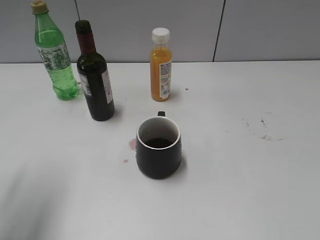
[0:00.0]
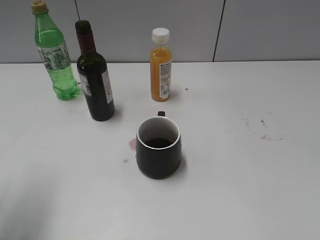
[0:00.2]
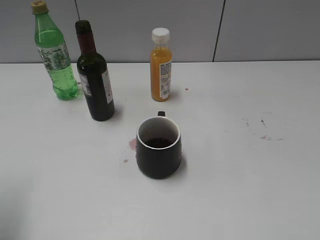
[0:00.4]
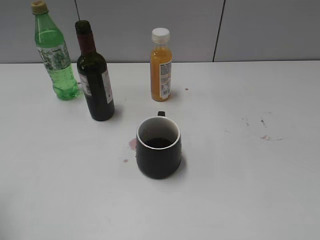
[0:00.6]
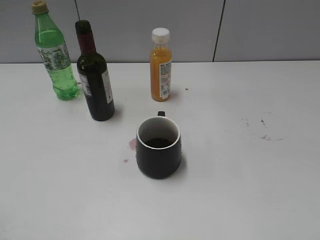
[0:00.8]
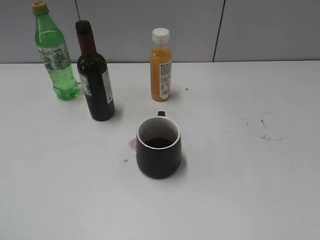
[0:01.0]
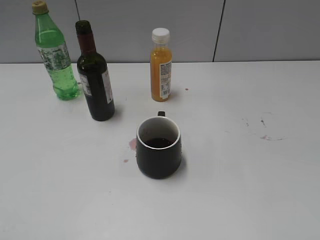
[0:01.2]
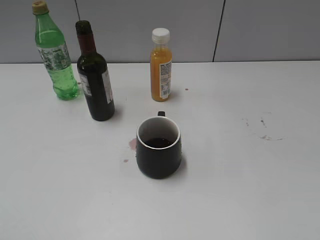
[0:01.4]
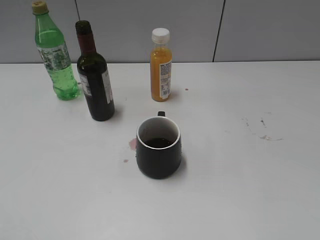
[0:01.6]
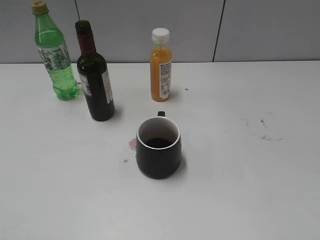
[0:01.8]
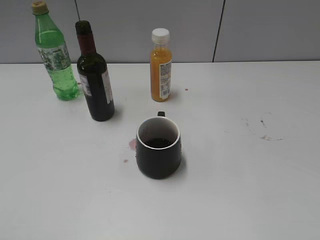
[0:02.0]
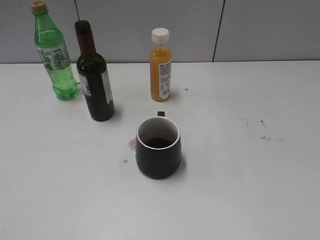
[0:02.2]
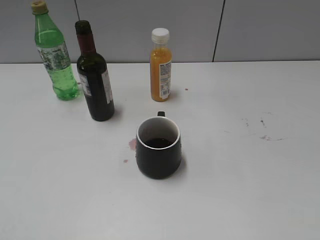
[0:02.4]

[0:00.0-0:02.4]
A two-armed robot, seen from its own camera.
0:00.0 to 0:01.2: The left gripper travels backward by some 15 cm.

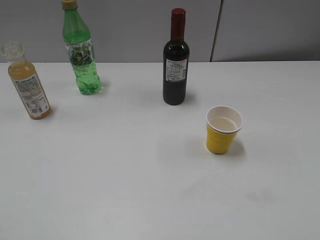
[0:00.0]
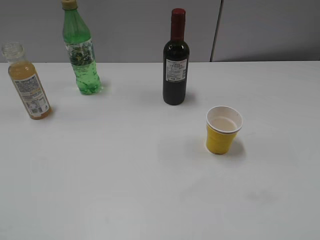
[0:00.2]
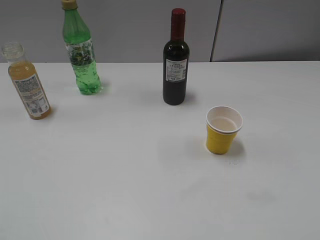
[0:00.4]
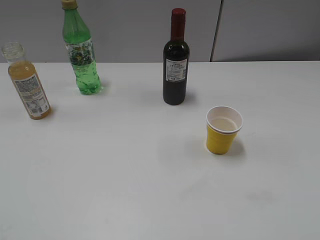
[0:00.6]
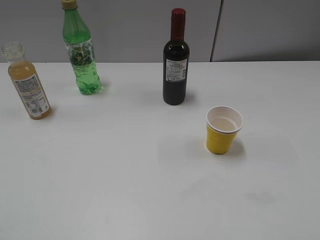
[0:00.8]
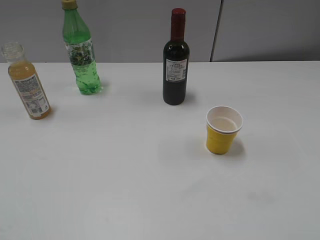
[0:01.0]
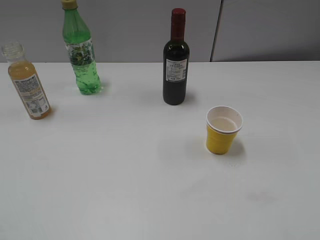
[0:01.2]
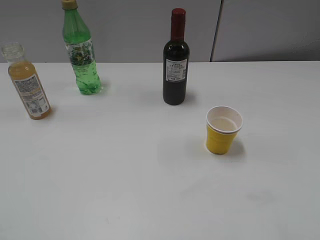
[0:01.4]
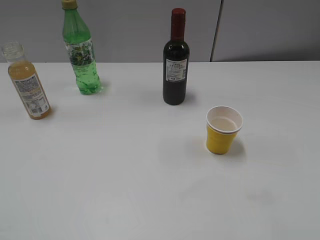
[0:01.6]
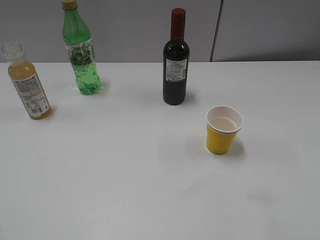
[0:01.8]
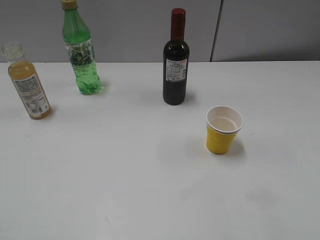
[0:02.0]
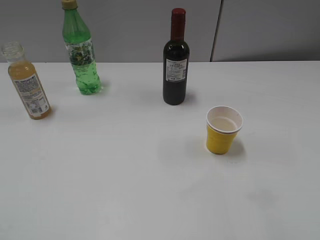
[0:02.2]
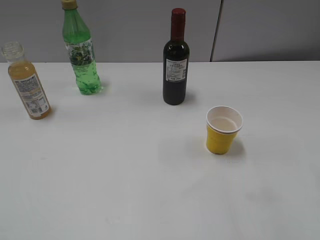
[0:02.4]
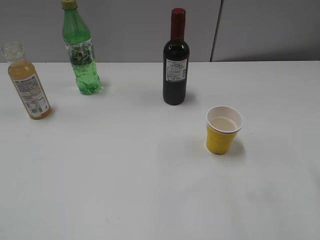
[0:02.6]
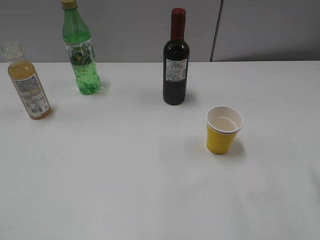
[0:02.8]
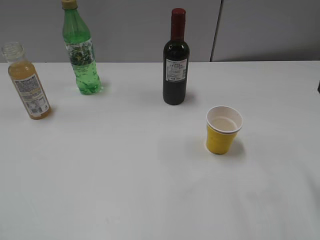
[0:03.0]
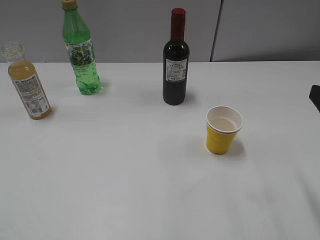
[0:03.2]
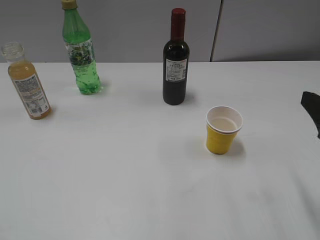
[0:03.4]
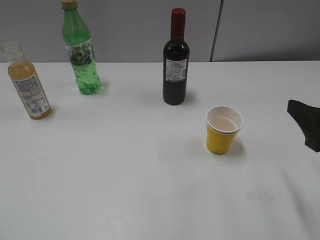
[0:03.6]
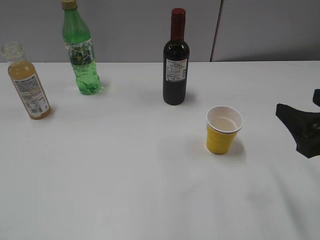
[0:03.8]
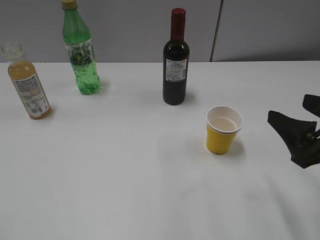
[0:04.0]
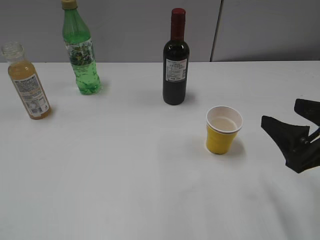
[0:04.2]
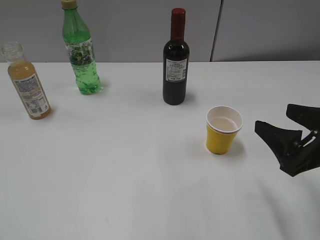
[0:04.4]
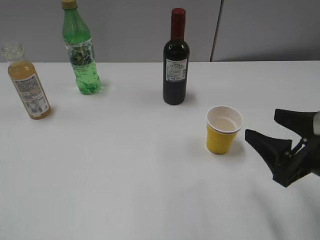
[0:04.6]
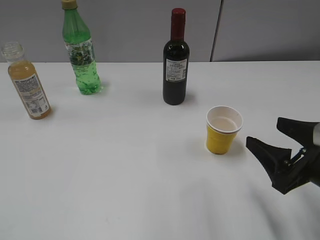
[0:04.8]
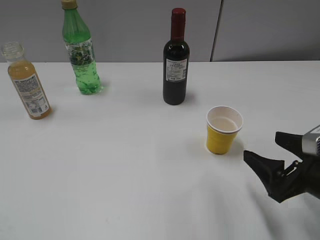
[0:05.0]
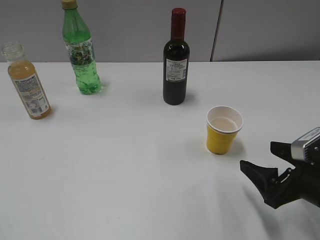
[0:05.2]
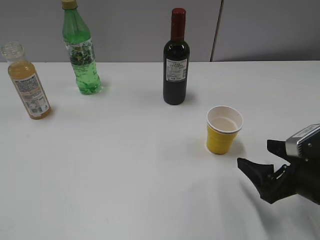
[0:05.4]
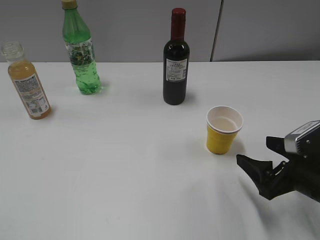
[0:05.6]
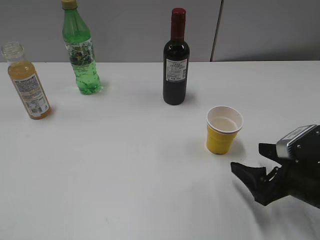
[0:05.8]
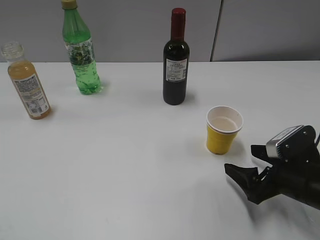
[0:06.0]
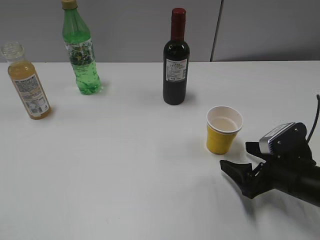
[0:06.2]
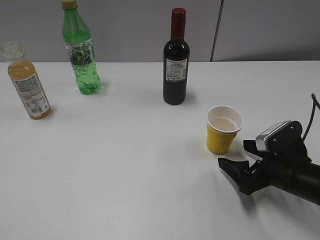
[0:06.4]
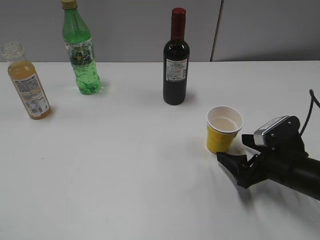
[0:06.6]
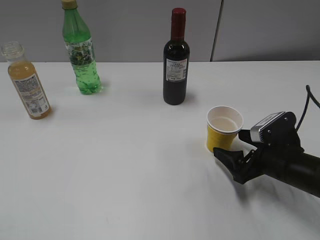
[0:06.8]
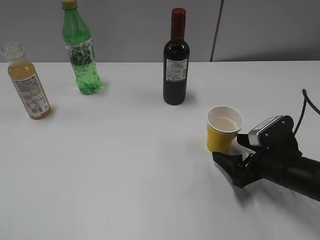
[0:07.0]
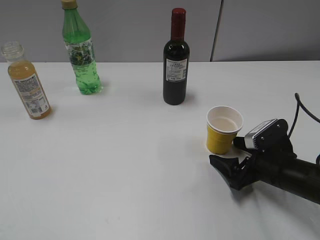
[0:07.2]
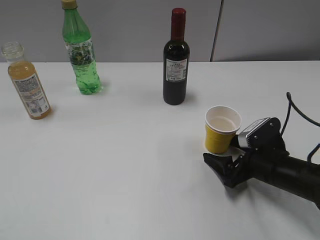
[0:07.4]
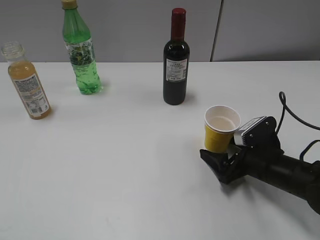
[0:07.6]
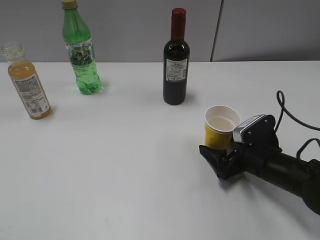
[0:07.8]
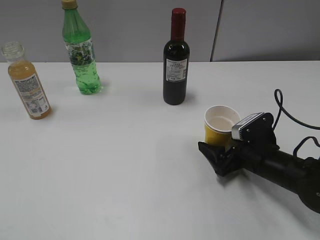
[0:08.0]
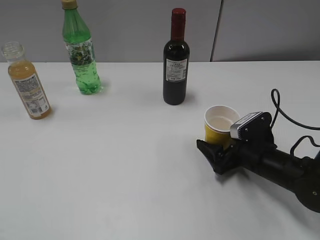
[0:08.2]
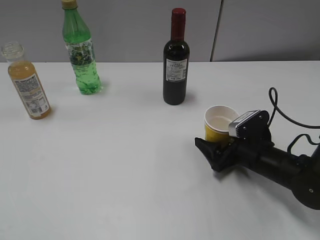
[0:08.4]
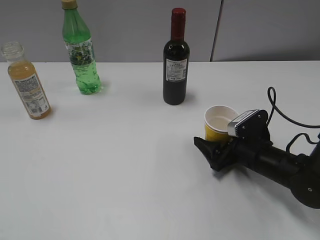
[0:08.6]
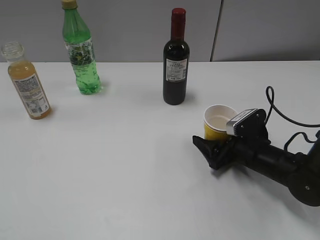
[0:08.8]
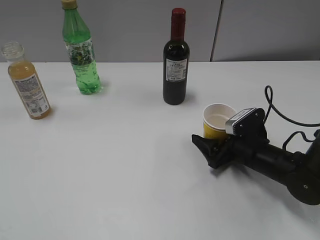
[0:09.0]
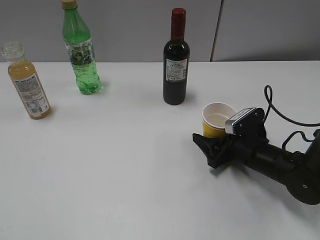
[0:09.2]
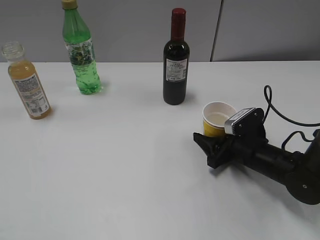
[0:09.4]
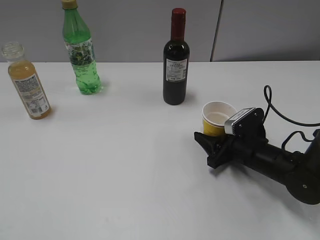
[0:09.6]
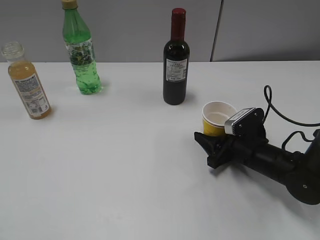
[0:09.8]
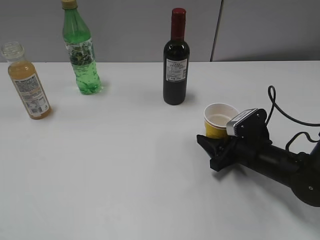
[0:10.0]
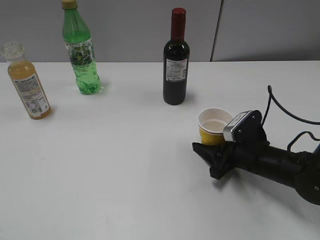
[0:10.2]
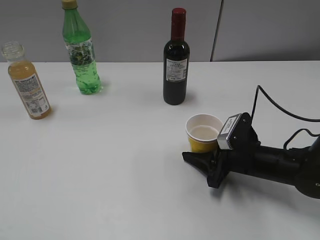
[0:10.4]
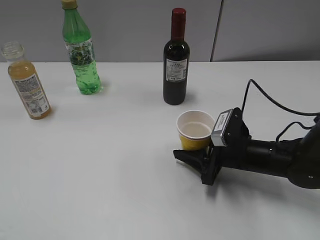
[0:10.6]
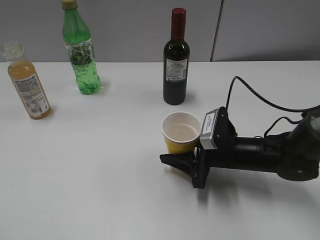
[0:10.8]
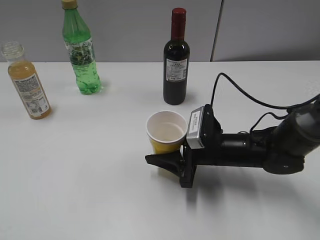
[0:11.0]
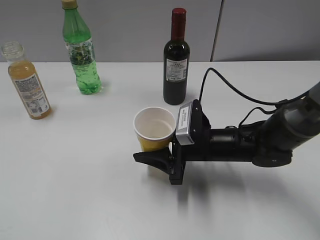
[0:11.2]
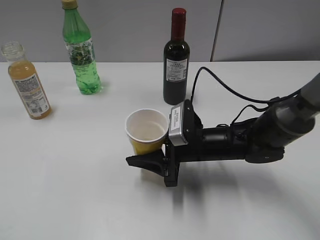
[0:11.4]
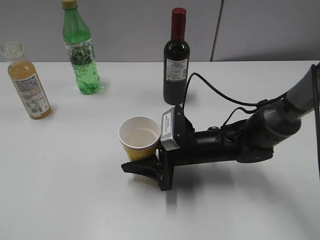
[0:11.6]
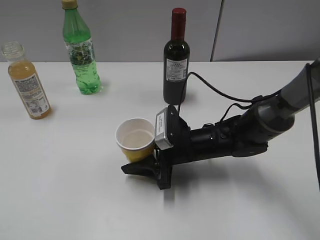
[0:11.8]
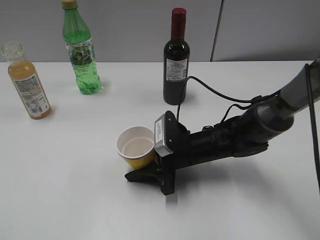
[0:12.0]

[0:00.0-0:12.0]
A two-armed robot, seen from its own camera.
Step, 0:03.0 to 0:09.8: Grasp the yellow paper cup with right gripper.
0:03.0 to 0:04.4: The right gripper goes approximately 5 cm downward.
0:04.4 to 0:06.0: The right gripper shifts about 10 cm downward.
0:06.0 to 0:07.6: The right gripper heads forward, covering approximately 5 cm.
0:07.6 to 0:09.0: The grippers make only small movements.
0:09.0 to 0:10.4: The right gripper closes.
0:10.4 to 0:12.0: The right gripper travels to the left by roughly 10 cm.

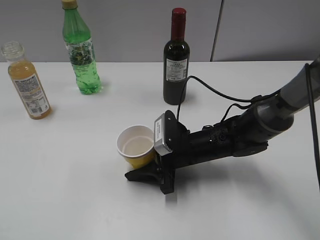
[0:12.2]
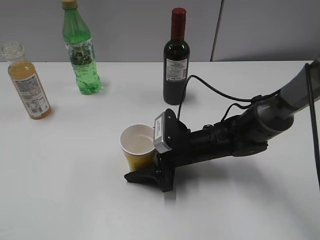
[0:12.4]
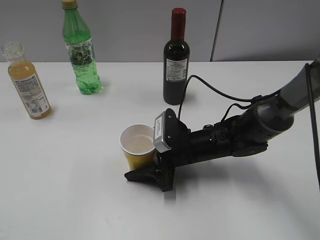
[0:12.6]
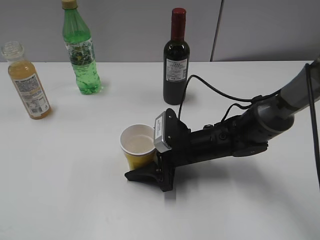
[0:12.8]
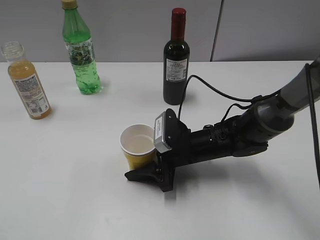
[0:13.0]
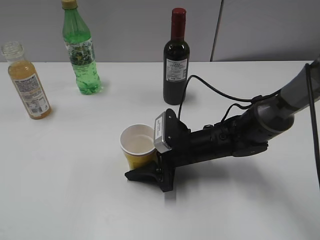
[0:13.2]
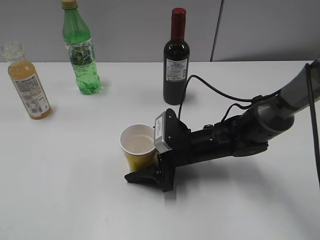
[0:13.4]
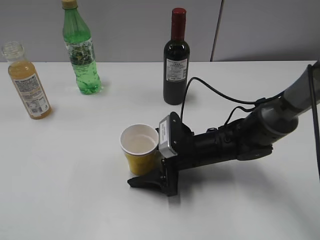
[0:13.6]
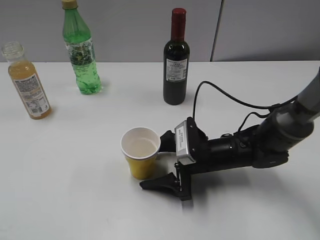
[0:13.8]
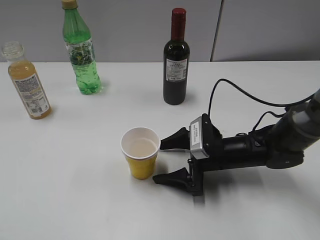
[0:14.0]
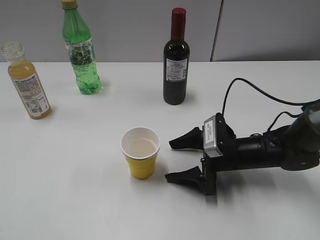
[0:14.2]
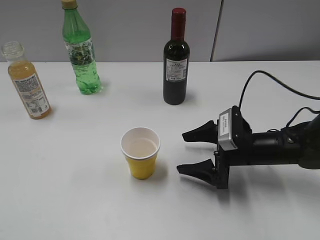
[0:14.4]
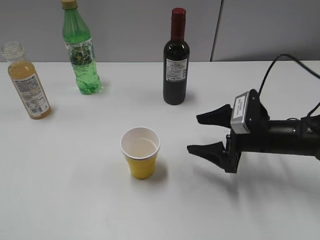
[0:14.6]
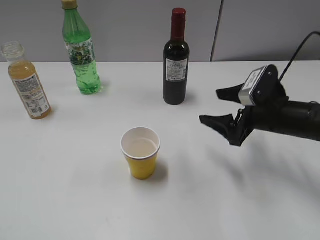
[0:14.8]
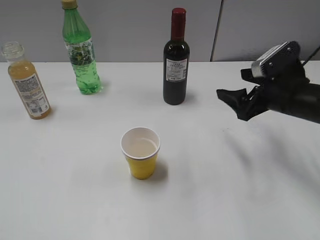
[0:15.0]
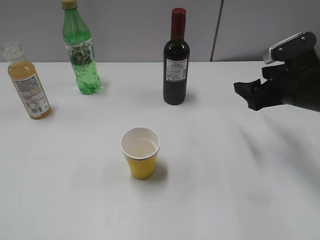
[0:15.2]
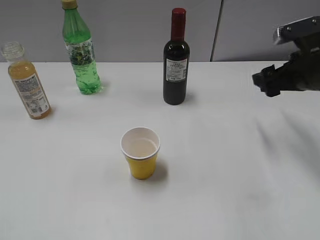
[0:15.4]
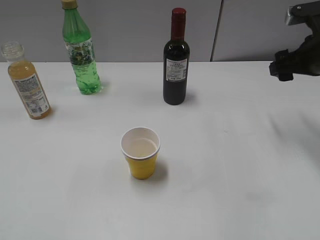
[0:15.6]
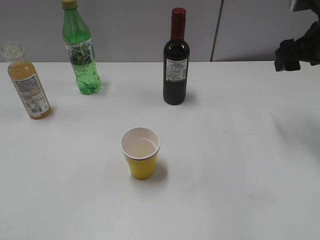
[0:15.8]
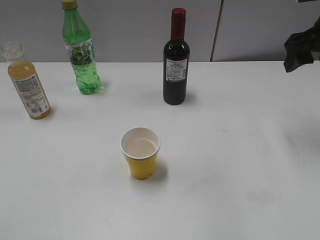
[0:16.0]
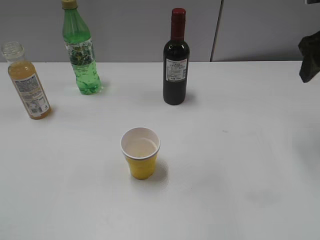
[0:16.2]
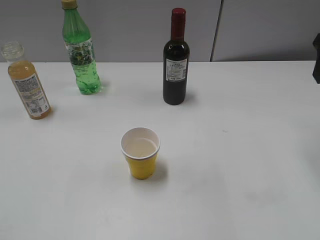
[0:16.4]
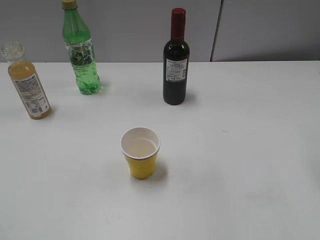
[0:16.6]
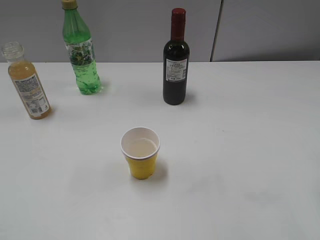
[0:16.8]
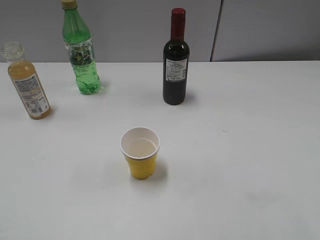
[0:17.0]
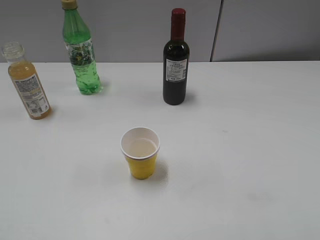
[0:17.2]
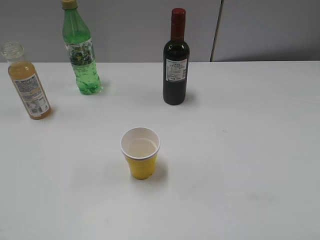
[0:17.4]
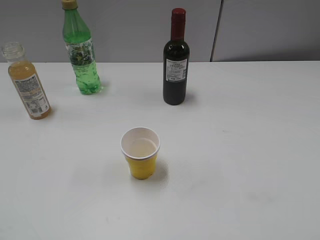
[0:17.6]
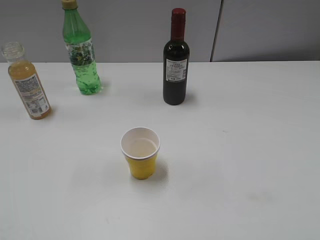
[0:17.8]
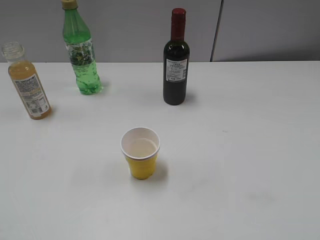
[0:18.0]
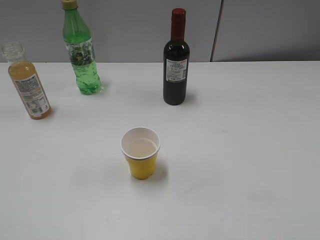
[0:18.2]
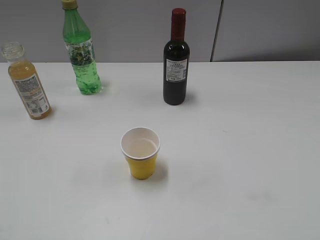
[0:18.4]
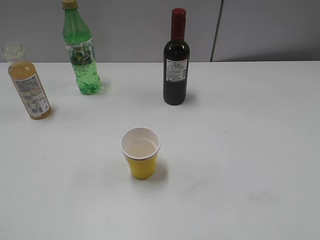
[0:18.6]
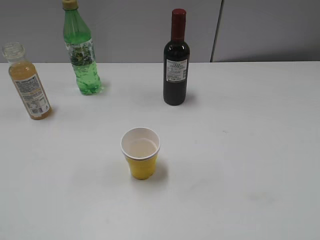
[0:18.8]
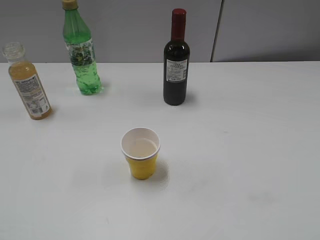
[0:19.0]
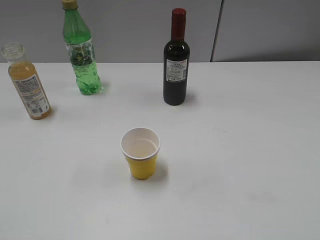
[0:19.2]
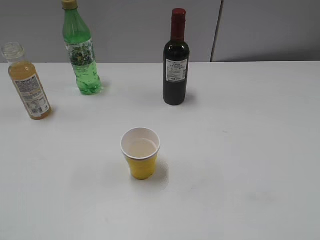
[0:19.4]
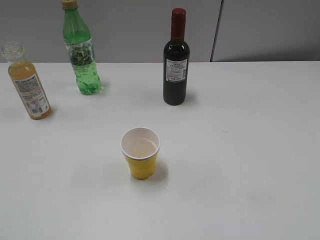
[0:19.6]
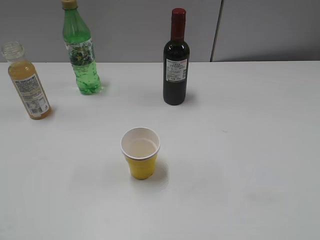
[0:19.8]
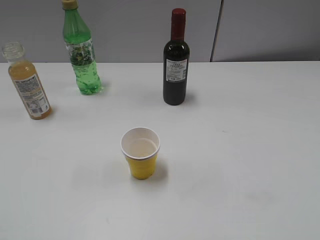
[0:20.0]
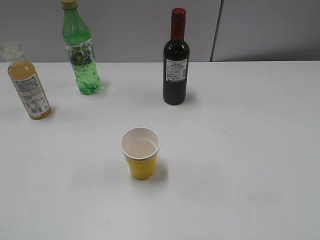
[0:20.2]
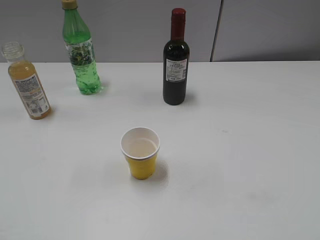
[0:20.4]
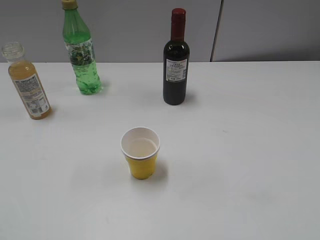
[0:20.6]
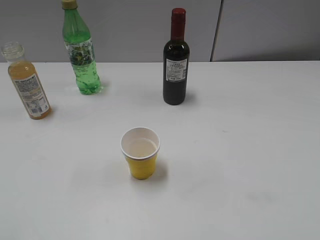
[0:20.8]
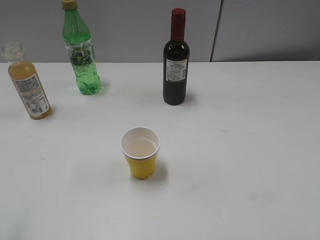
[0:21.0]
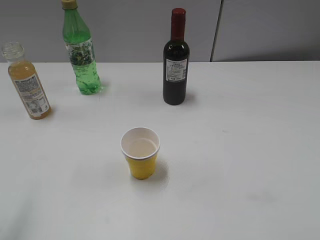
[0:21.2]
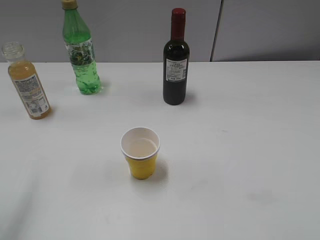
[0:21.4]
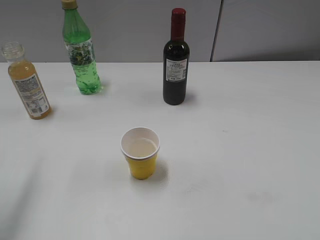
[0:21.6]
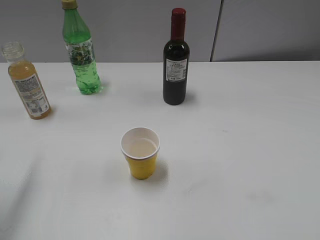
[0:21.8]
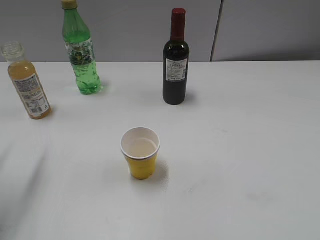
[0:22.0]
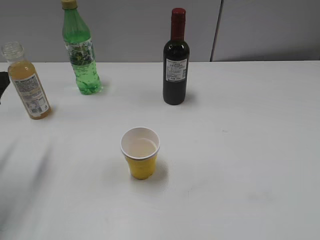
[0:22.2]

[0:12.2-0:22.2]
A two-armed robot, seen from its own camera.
0:12.2 to 0:13.6: The right gripper opens.
0:13.6 to 0:15.0: The right gripper shifts roughly 20 cm to the right and upward.
0:15.0 to 0:16.4: The right gripper shifts approximately 15 cm upward.
0:20.8 to 0:22.2: The left gripper moves forward and downward, roughly 25 cm.
